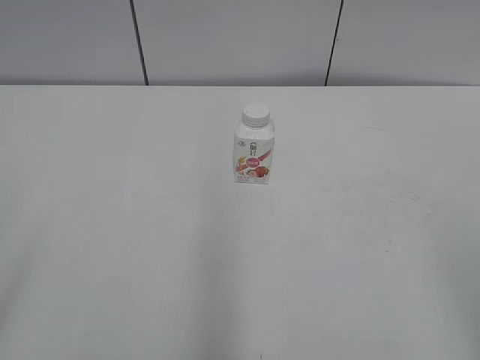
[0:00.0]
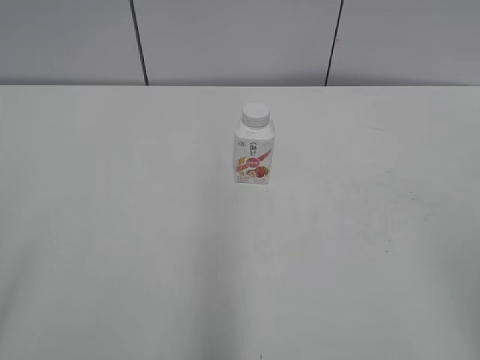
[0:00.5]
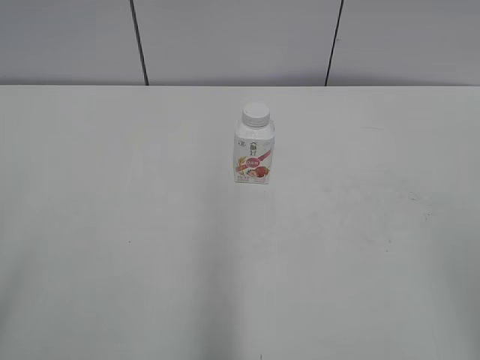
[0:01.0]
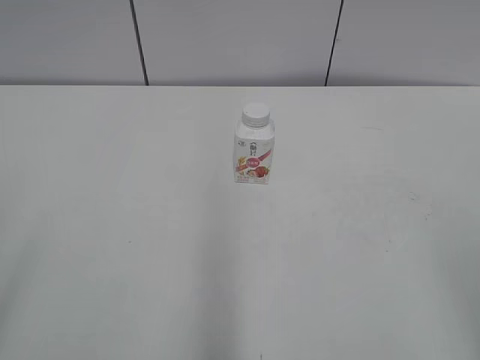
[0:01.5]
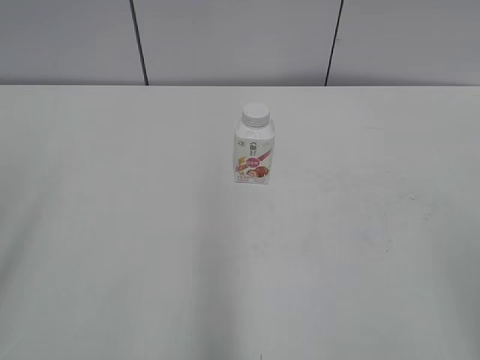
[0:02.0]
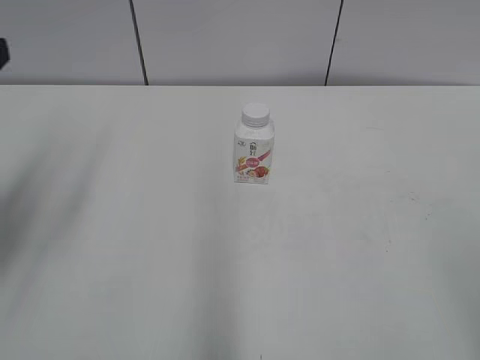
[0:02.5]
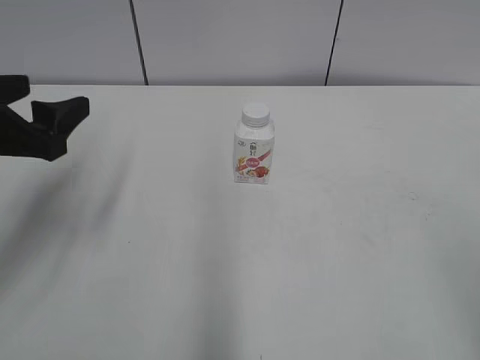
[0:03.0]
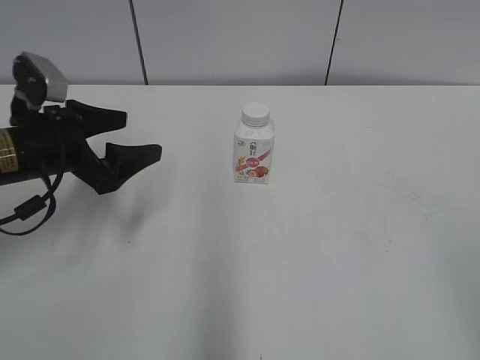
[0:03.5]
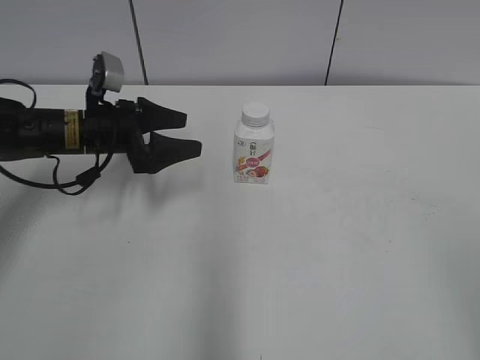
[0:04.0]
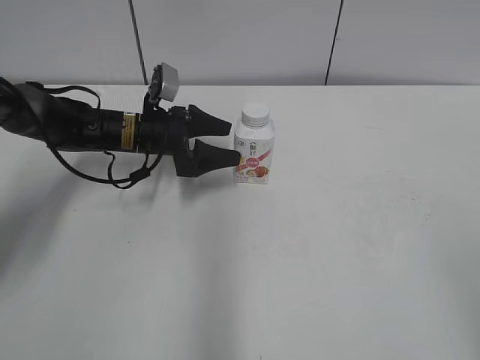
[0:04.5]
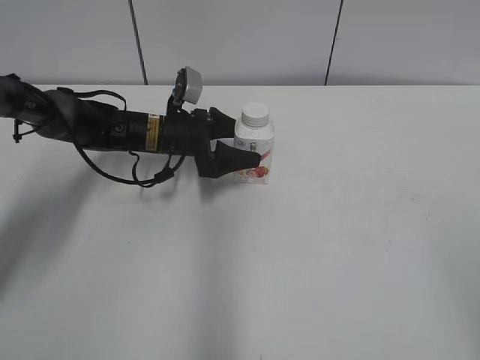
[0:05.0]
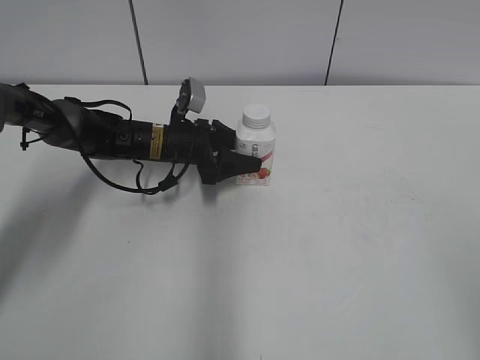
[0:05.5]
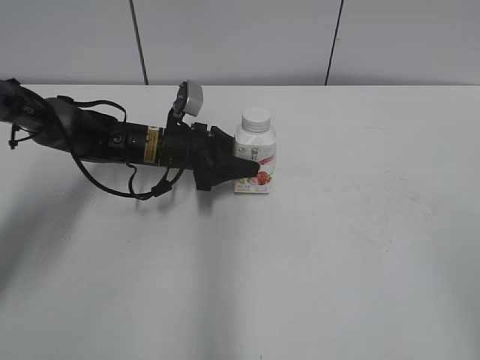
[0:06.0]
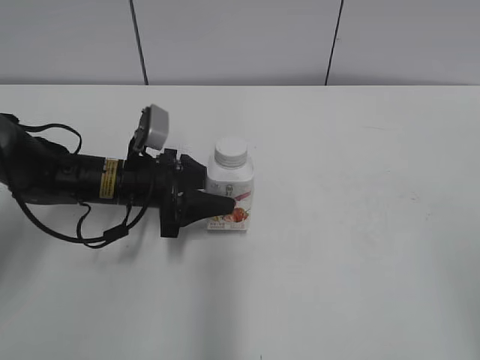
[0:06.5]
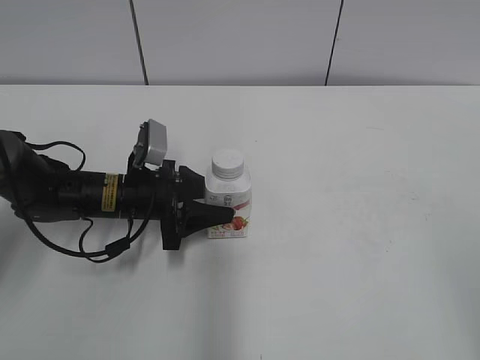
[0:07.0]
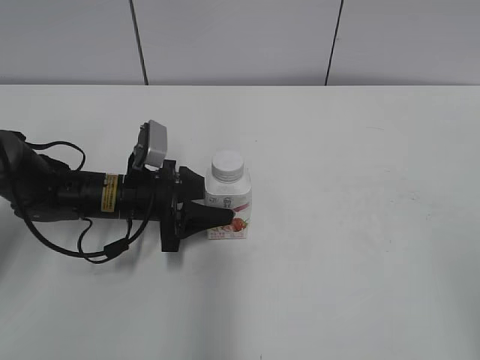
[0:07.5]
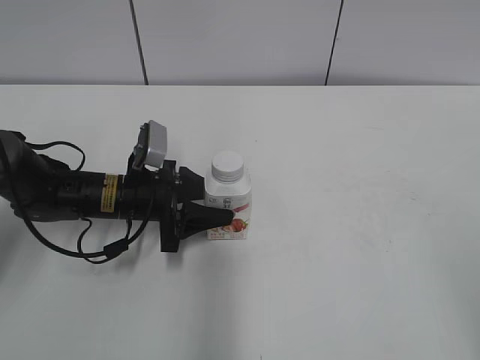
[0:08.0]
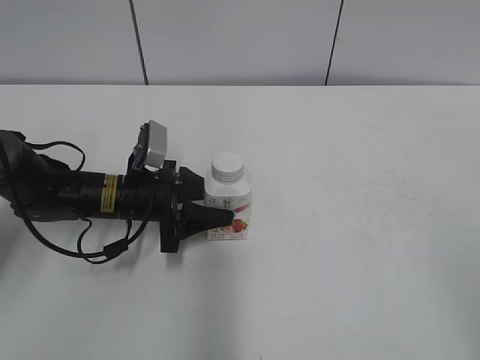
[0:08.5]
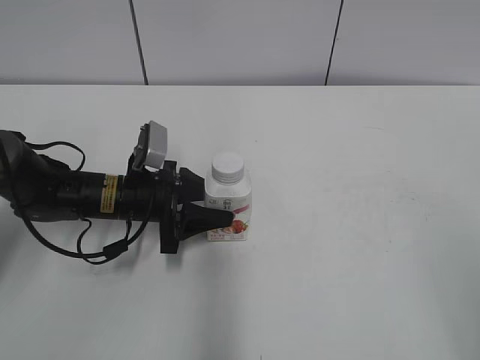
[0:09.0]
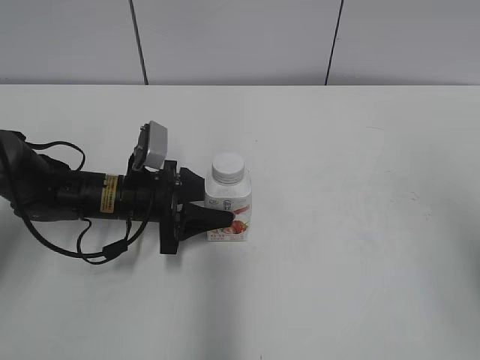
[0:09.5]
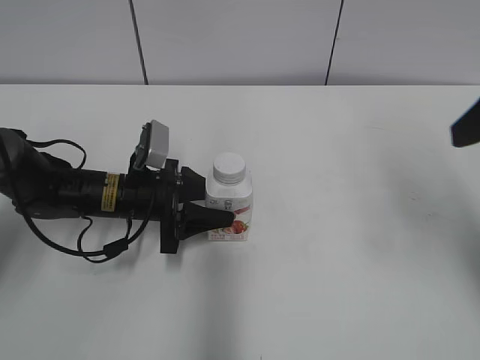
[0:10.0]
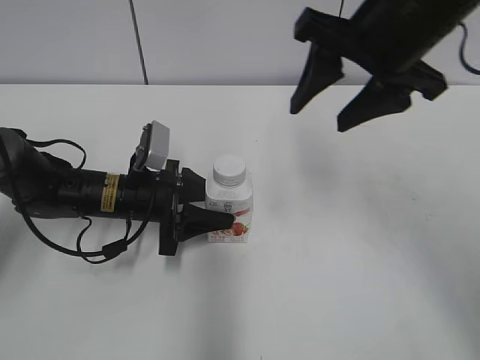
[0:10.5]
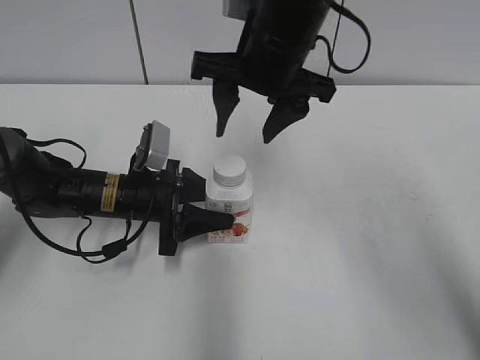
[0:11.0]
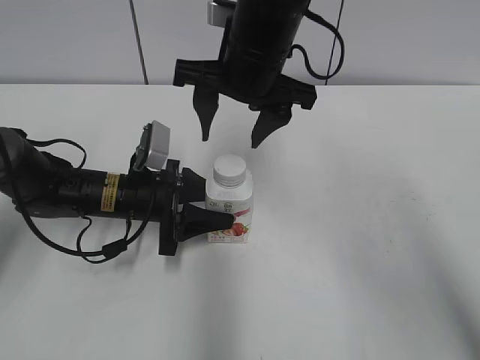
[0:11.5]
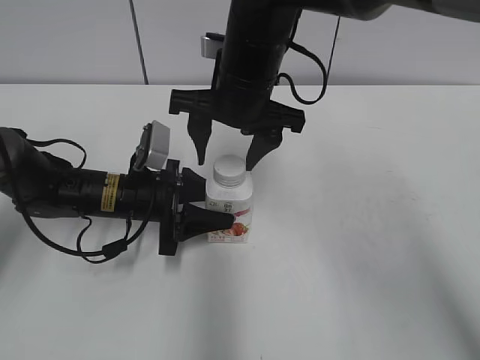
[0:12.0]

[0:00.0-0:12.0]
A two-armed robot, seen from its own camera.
Step, 0:00.0 to 0:05.5: Grab the Yili Changqing with the left hand.
Step, 0:06.0 to 0:07.0: Move the Yili Changqing from right to left.
0:02.0 to 0:04.0: The left gripper moves forward and downward, about 40 cm.
0:04.0 to 0:06.0: The left gripper shifts approximately 10 cm to the right and downward, and closes.
0:06.0 to 0:08.0: The left gripper travels backward by approximately 10 cm.
0:08.0 to 0:10.0: The right gripper moves forward, roughly 20 cm.
0:10.0 to 0:12.0: The right gripper is displaced to the left, forward and downward by approximately 30 cm.

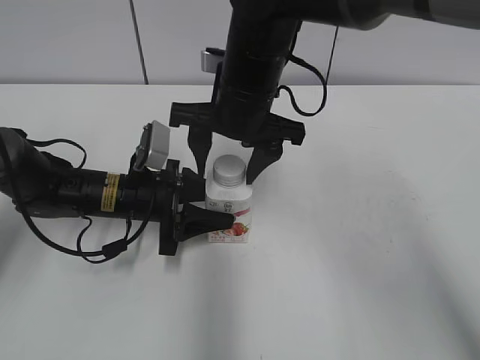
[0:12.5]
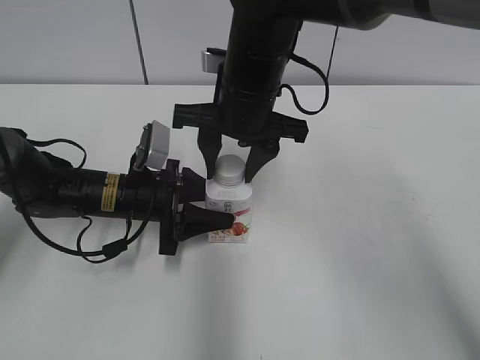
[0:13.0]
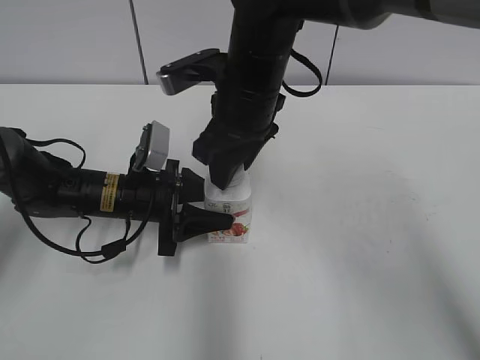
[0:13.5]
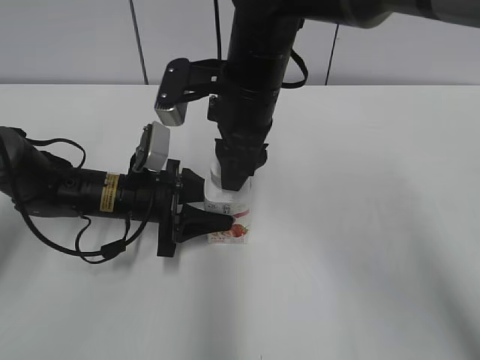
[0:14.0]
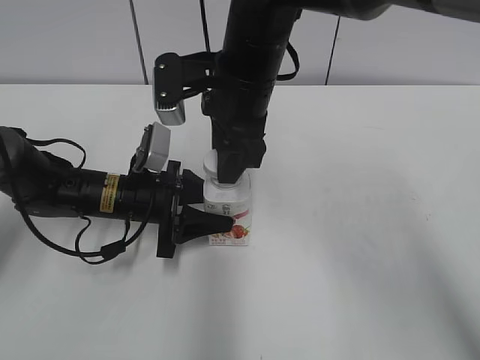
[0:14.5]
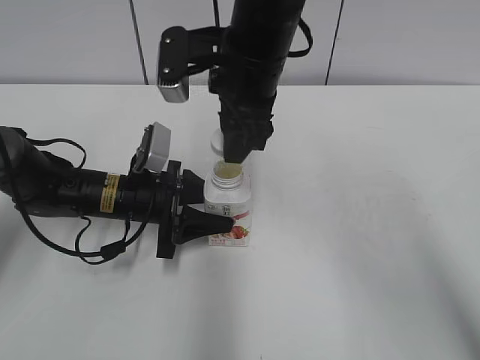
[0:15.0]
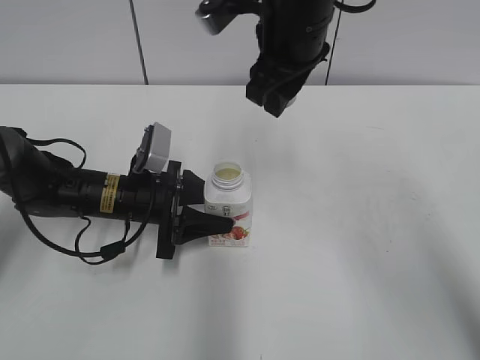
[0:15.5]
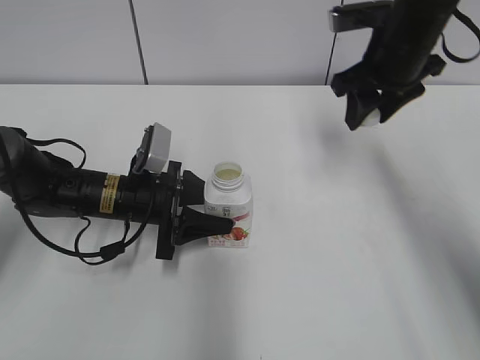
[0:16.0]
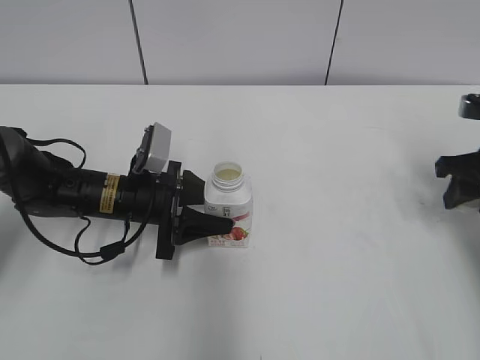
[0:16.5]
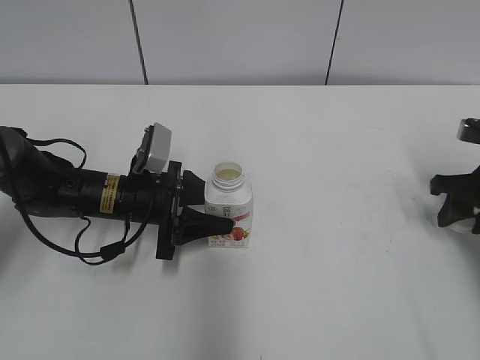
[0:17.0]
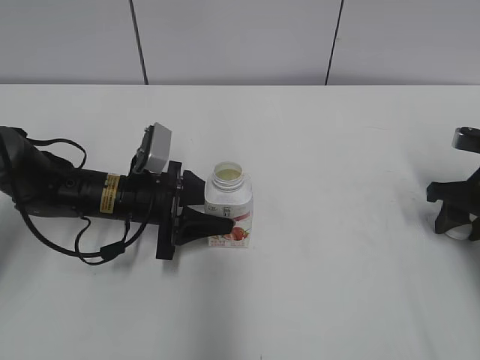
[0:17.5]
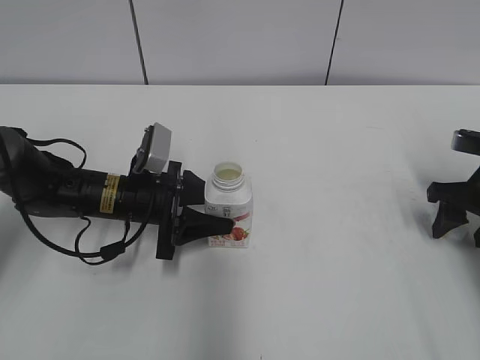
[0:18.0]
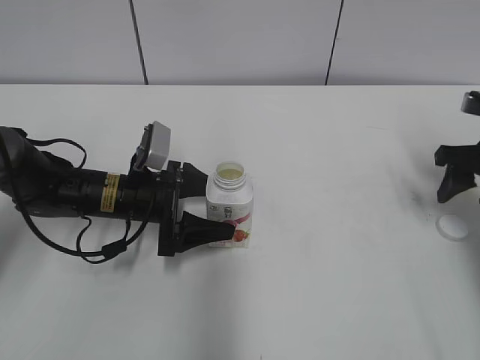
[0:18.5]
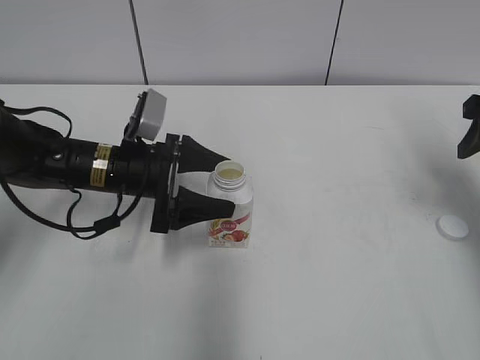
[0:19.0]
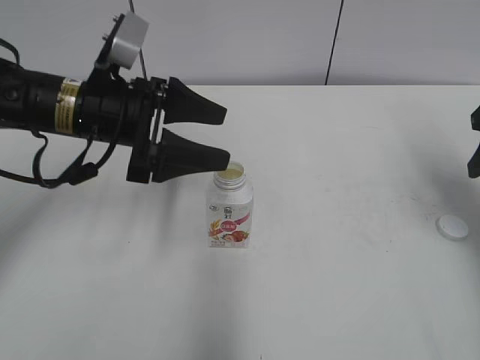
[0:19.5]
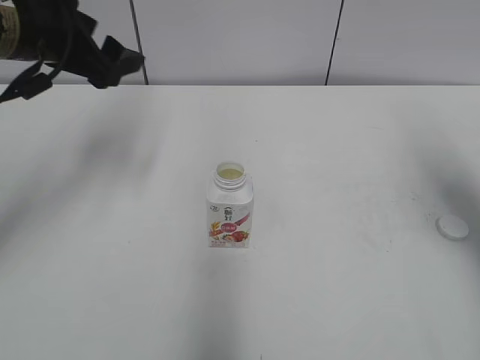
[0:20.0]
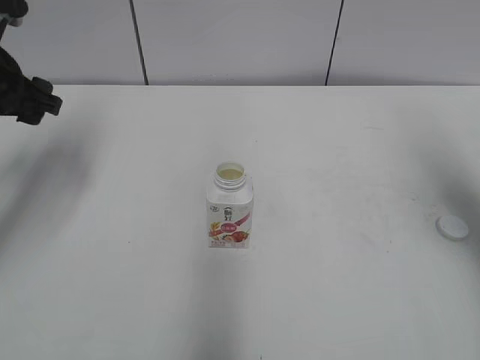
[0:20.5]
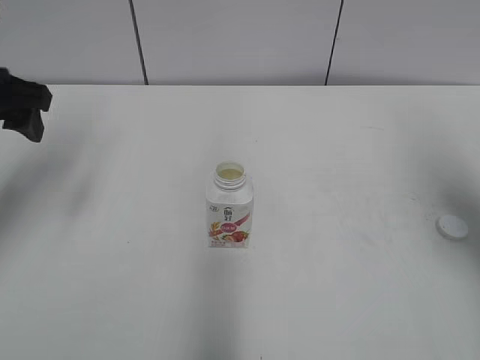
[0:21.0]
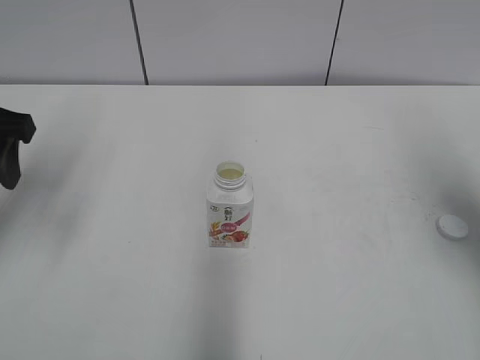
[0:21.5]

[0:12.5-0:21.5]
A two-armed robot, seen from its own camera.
Step, 0:12.5 to 0:14.5: Fix the Yili Changqing on the left.
Step, 0:15.0 to 0:17.5: Place the bottle cap on the right.
0:12.5 to 0:14.5: The right gripper closes.
0:14.5 to 0:17.0: The right gripper is displaced to the right by some 30 cm.
0:17.0 to 0:19.5: Both grippers move upward, about 10 cm. The right gripper opens up, while the left gripper opens its fingers.
0:19.5 to 0:21.5: The right gripper heads upward and backward, covering approximately 10 cm, and closes its fingers; the left gripper is displaced to the left and upward by about 15 cm.

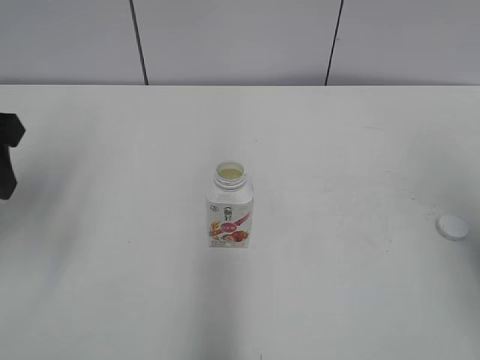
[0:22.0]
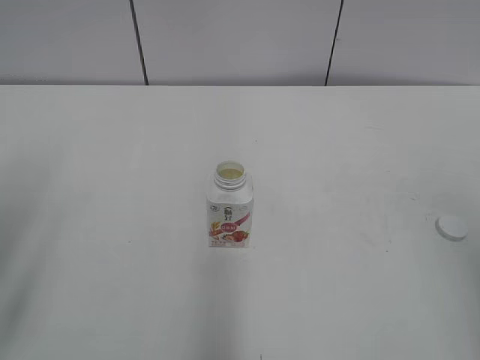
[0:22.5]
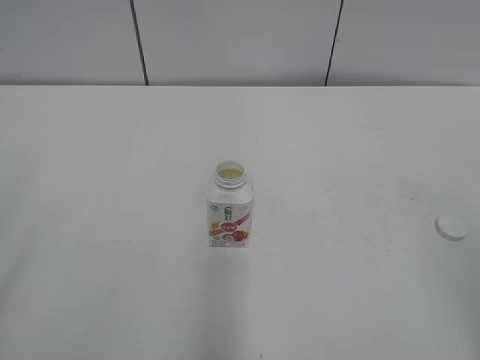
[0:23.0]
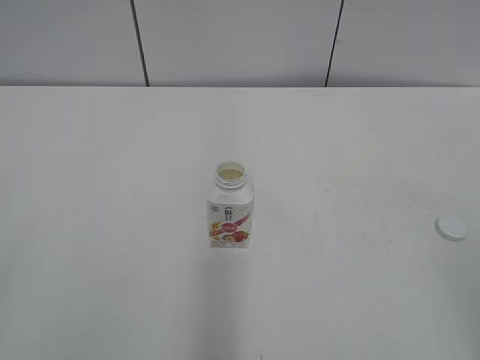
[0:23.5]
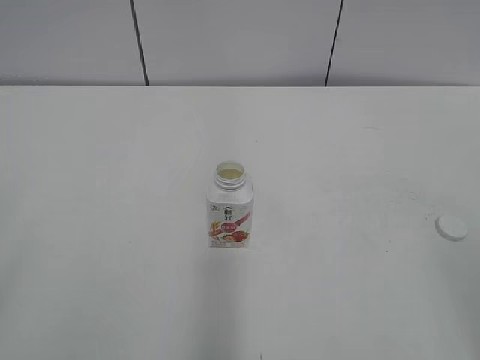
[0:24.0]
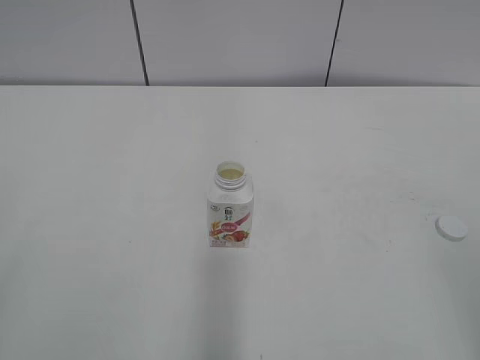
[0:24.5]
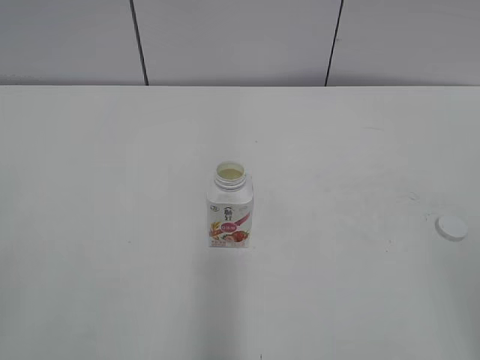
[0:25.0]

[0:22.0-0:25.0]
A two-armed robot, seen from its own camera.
0:22.0 to 0:23.5: The two grippers go about 25 cm backward.

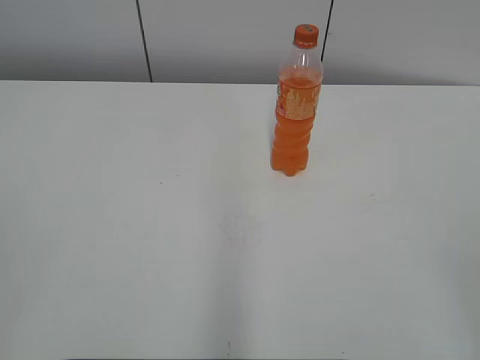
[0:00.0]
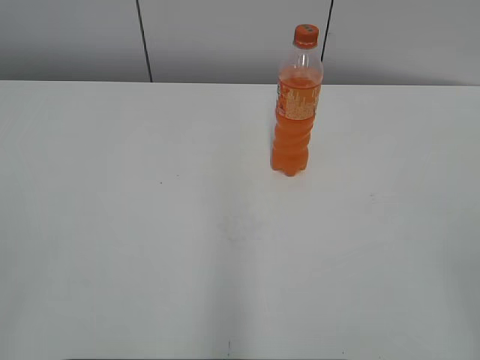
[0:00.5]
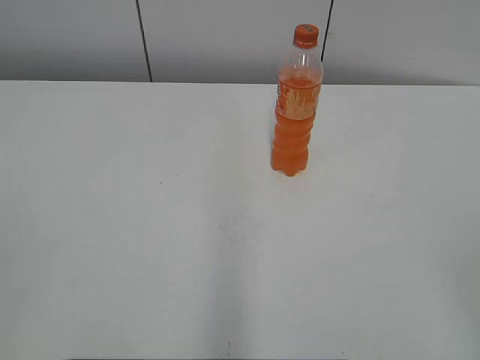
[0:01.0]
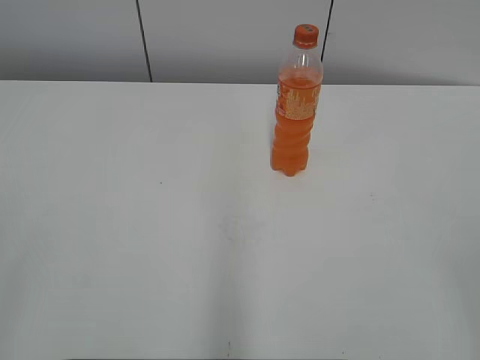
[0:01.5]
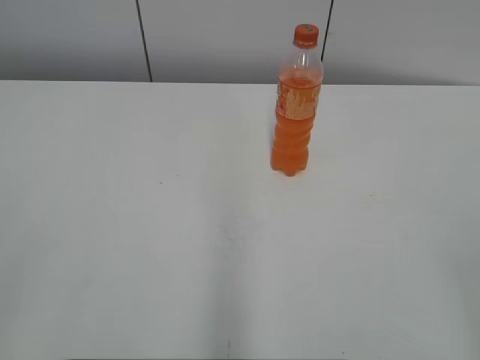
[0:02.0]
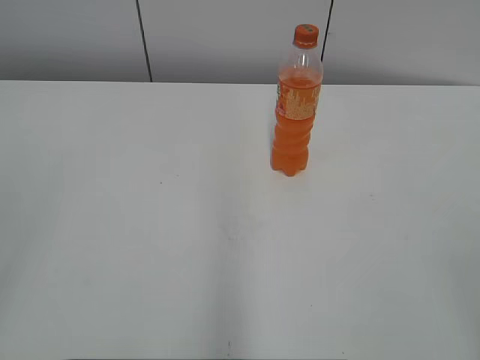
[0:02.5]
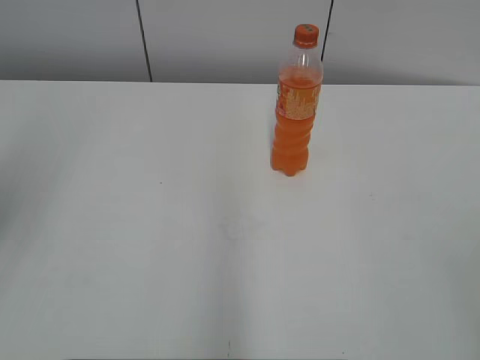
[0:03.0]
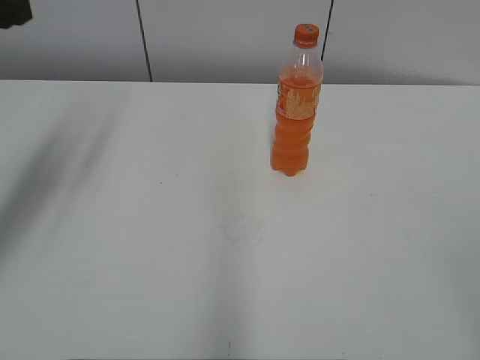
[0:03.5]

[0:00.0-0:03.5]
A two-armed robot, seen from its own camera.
0:02.0 to 0:03.5: The left gripper shifts about 30 cm forward.
